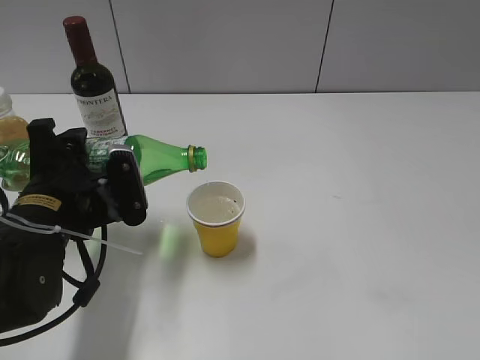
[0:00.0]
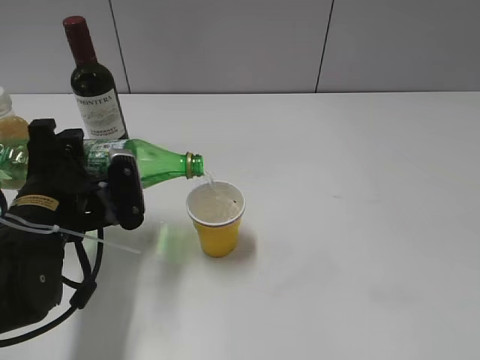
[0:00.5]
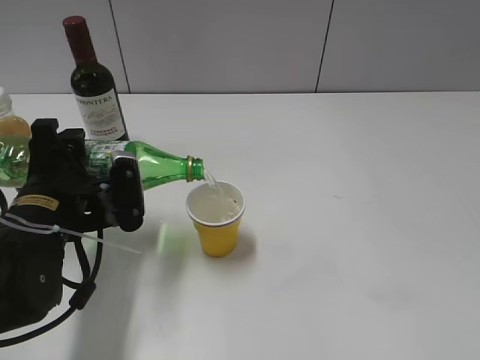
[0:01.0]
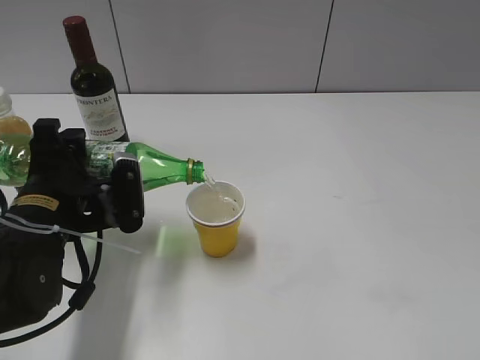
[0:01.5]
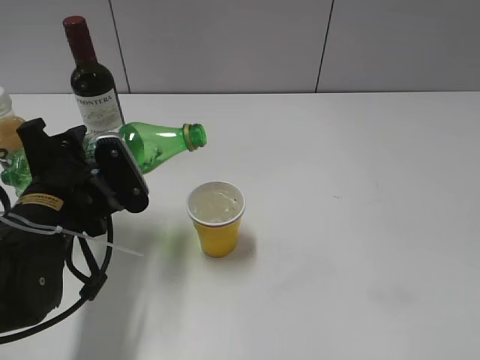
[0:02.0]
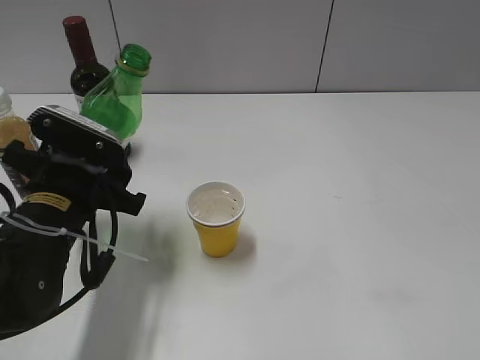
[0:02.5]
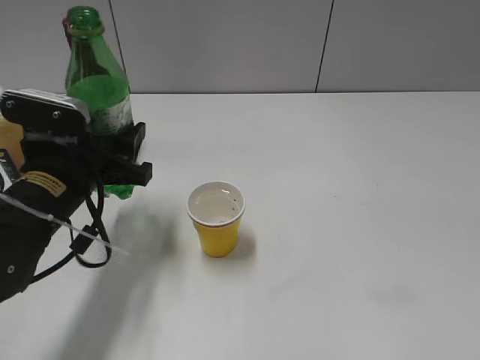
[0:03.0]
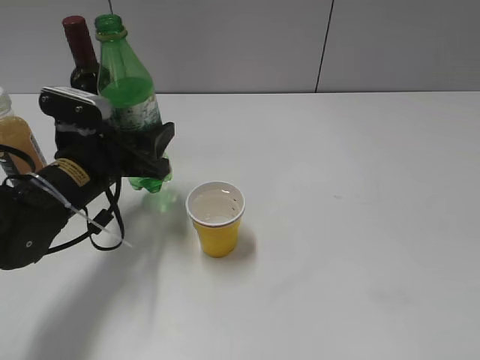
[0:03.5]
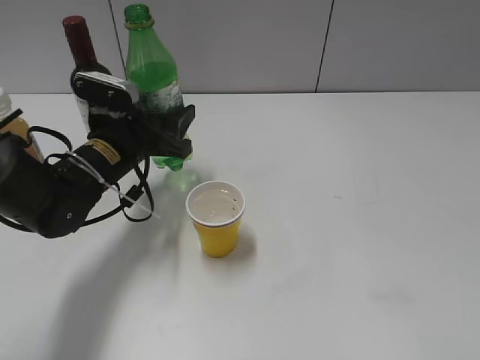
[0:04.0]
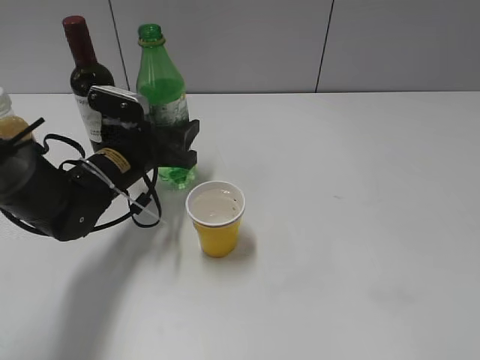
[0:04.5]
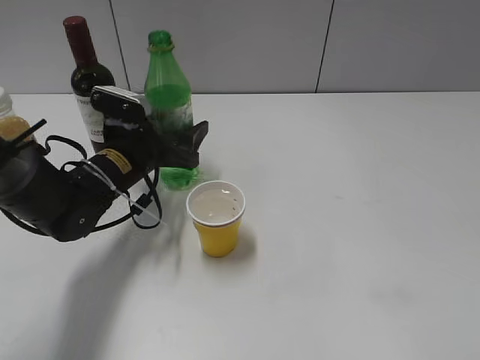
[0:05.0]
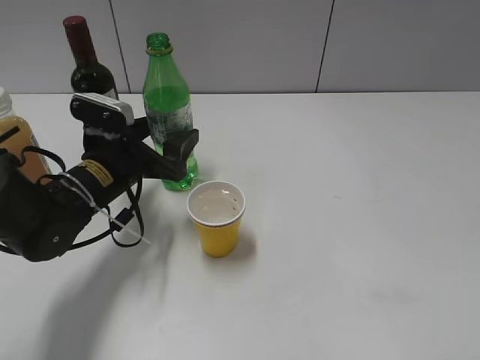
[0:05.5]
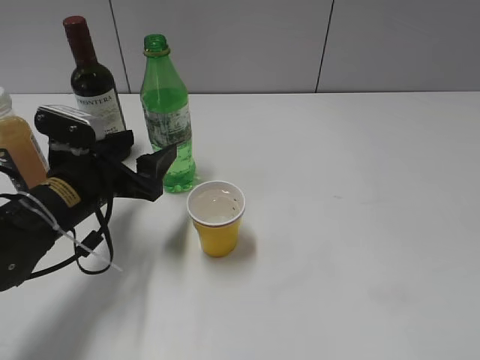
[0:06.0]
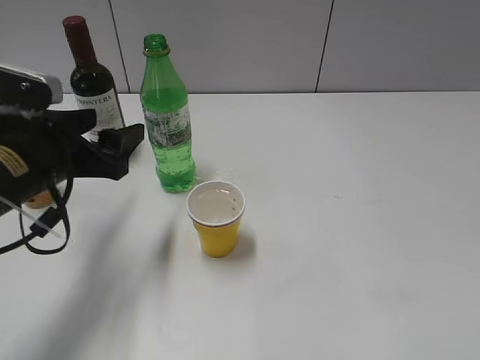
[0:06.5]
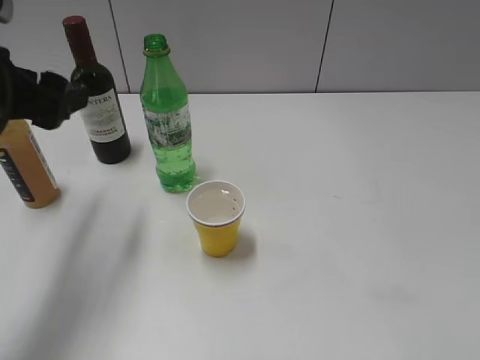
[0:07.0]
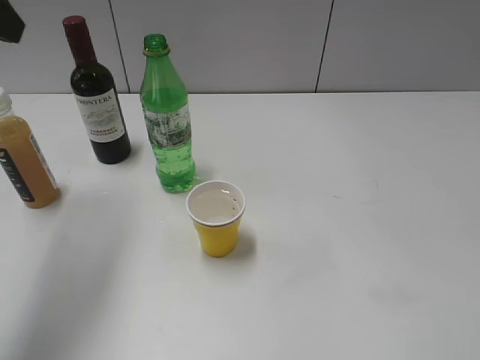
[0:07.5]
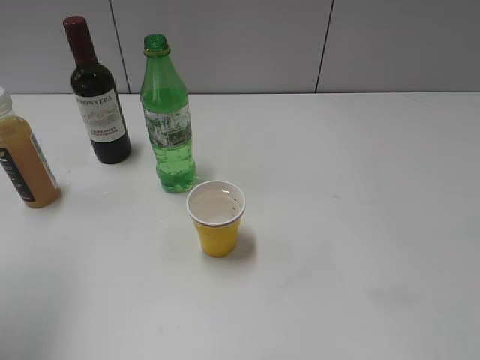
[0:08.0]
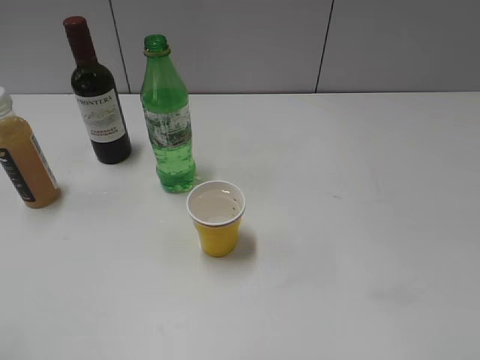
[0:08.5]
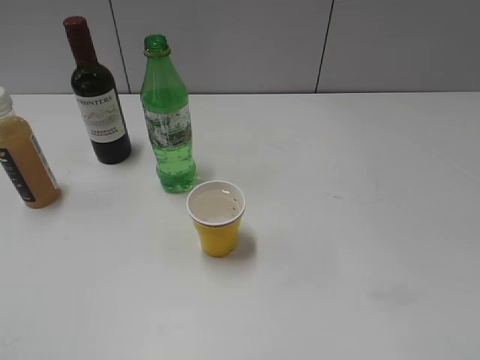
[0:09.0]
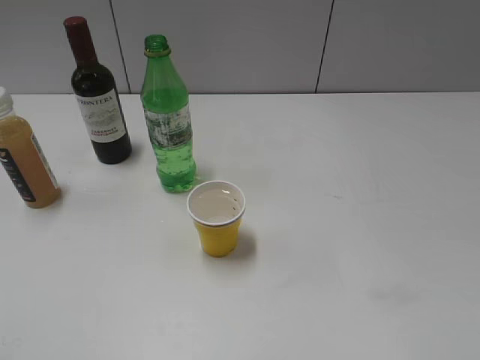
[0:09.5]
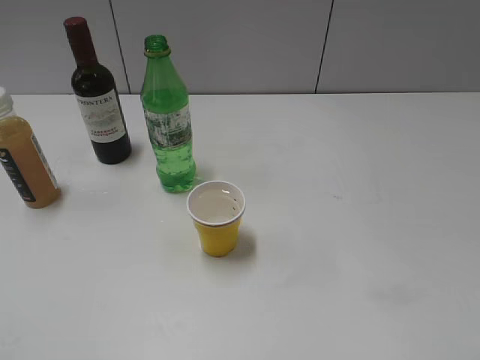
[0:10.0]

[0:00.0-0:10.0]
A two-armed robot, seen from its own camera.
Step, 0:00.0 to 0:02.0: Pour the sprite from bottle to cup with left gripper.
Step, 0:02.5 to 0:05.5: Place the sprite bottle on the table with left gripper.
0:00.0 to 0:02.0: The grippers move only a little.
0:02.0 to 0:04.0: The left gripper shifts roughly 10 cm forward.
0:04.0 to 0:06.0: The left gripper shifts approximately 5 cm backward, and opens up.
0:06.0 to 0:08.0: The left gripper moves upward and to the left, some 30 cm.
0:08.0 to 0:10.0: The left gripper goes roughly 20 cm backward and downward.

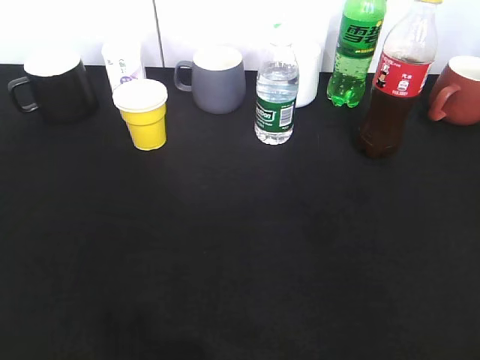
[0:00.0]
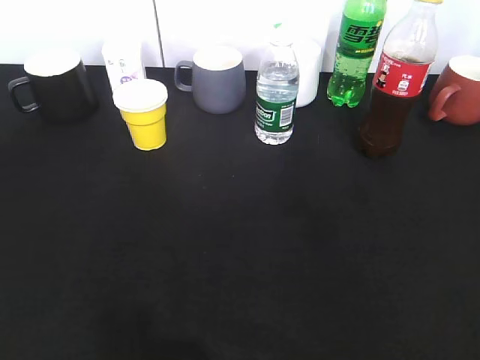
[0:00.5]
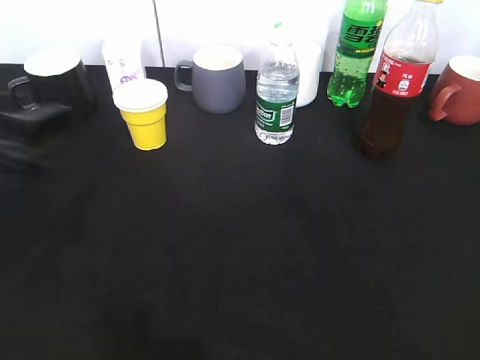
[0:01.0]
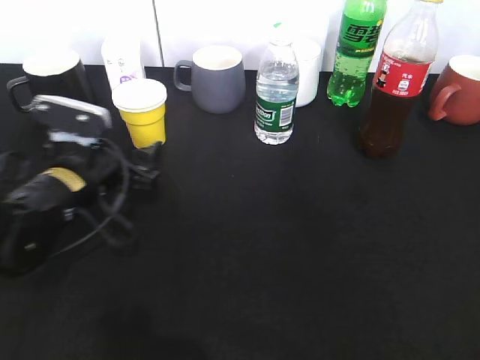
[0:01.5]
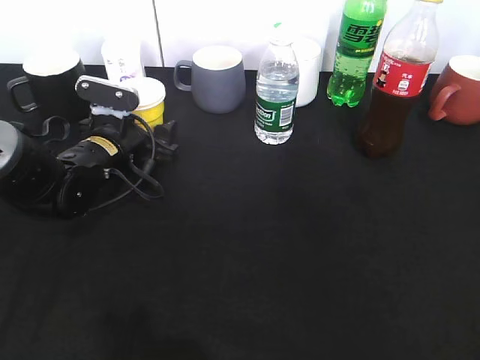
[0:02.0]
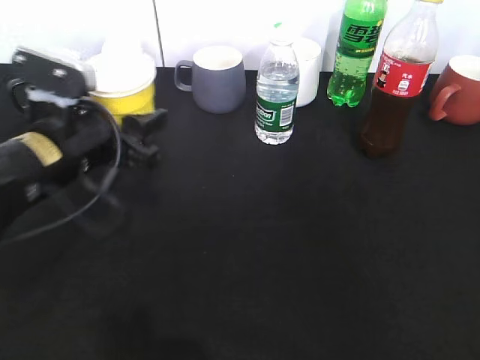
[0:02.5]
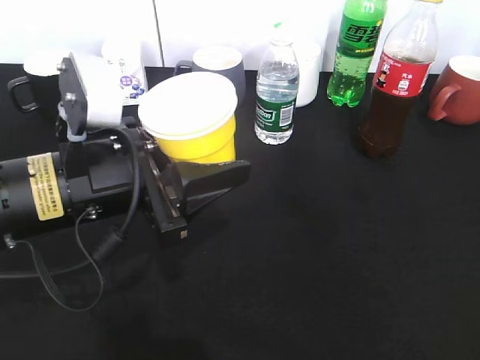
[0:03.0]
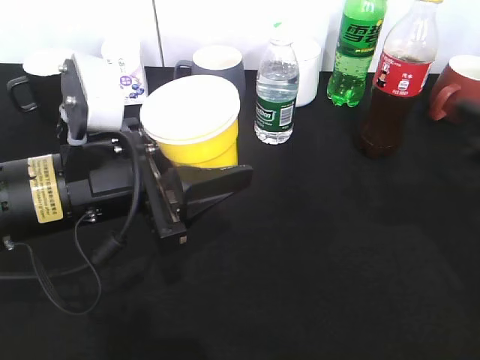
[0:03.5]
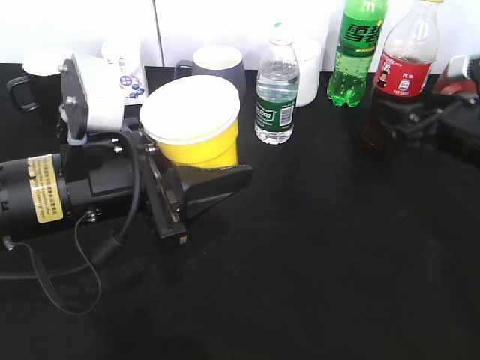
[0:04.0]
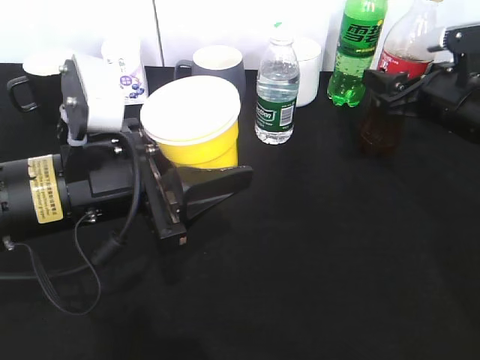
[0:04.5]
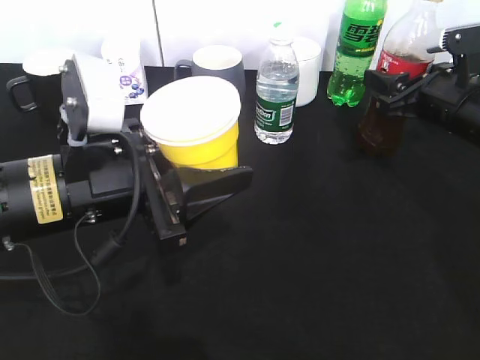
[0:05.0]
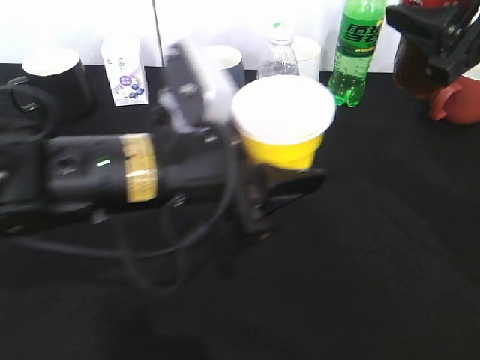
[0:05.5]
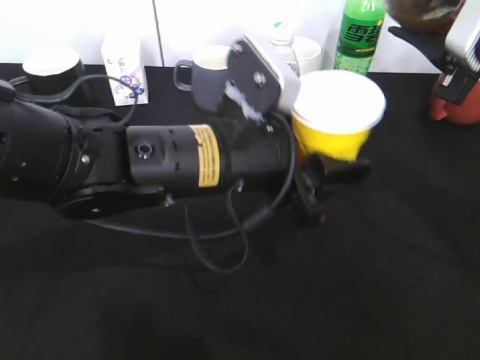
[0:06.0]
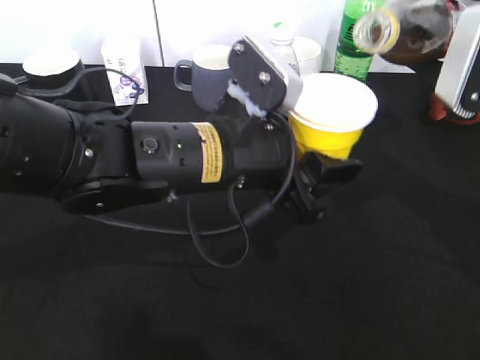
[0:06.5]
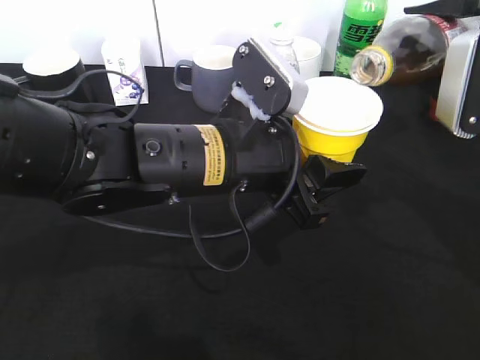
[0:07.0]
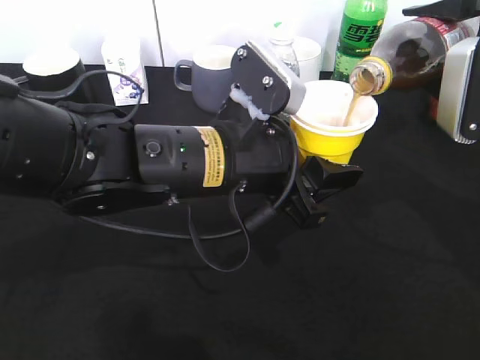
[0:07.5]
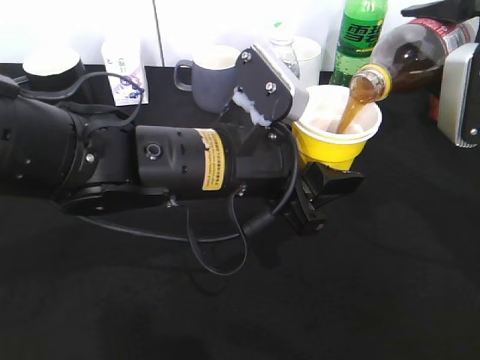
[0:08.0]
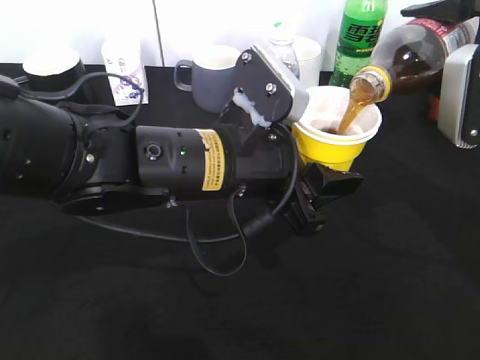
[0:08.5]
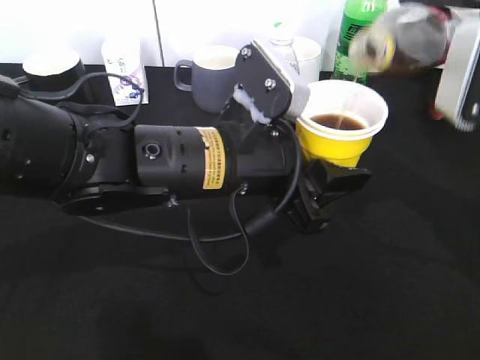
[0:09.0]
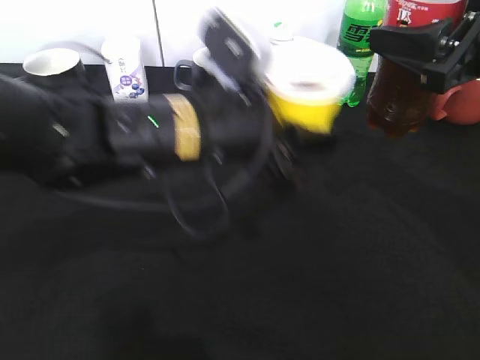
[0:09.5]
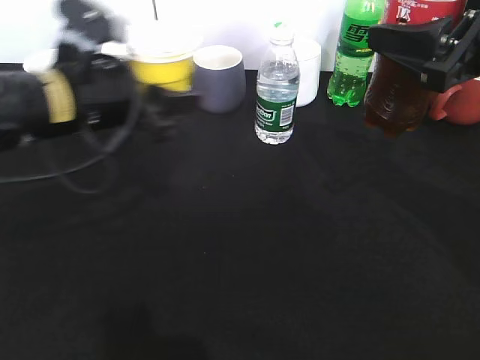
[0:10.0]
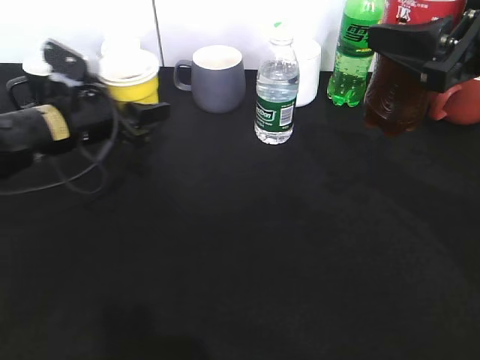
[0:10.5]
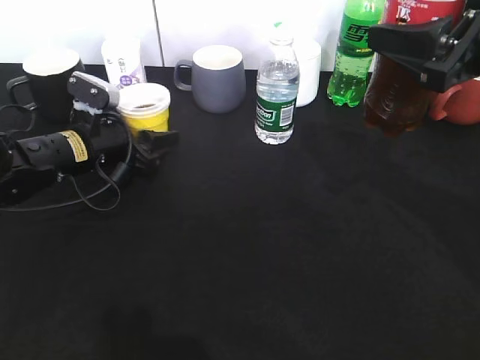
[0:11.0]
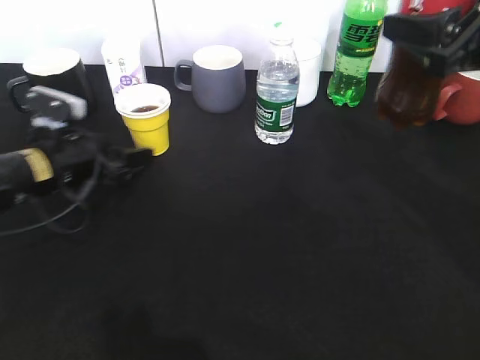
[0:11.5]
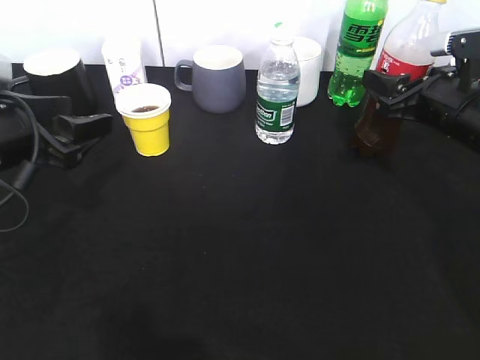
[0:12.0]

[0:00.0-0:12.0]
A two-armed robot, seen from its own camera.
Step, 0:00.0 to 0:02.0: Grasp the yellow paper cup with left gripper.
Step, 0:02.5 to 0:03.0: Lift the yellow paper cup with left gripper.
Step, 0:03.5 to 0:04.5: Grasp the bottle with cola with right gripper.
Step, 0:05.0 to 0:08.5: Pour the cola from bottle to cup with right gripper.
Step, 0:09.0 to 0:11.5: Place the yellow paper cup on the table with left gripper.
0:00.0 to 0:02.0: The left gripper heads forward, downward and to the right, covering about 40 cm, and opens up.
0:02.0 to 0:04.0: The right gripper heads forward, covering roughly 30 cm, and opens its fingers. The left gripper goes approximately 20 cm backward and upward, and closes up.
0:04.0 to 0:06.0: The right gripper travels upward by about 10 cm, and closes its fingers; the left gripper goes approximately 10 cm to the right.
0:08.0 to 0:10.0: The left gripper travels to the left and forward by approximately 15 cm.
0:10.0 to 0:12.0: The right gripper is displaced downward and forward by about 15 cm; the left gripper heads to the left, covering roughly 10 cm, moves roughly 10 cm downward and comes back, and opens up.

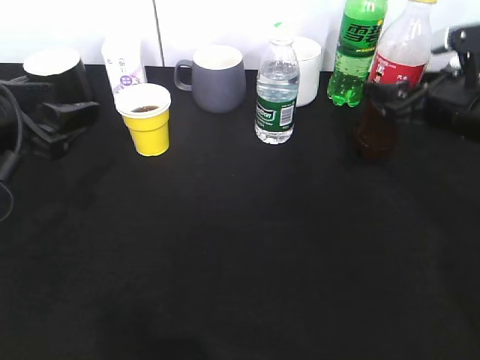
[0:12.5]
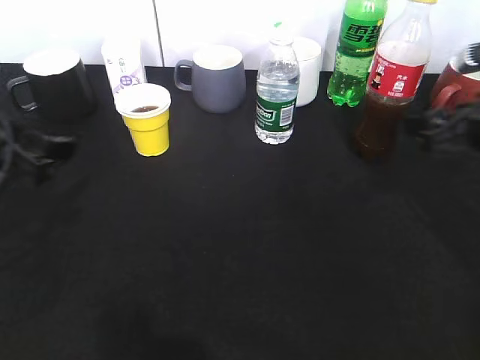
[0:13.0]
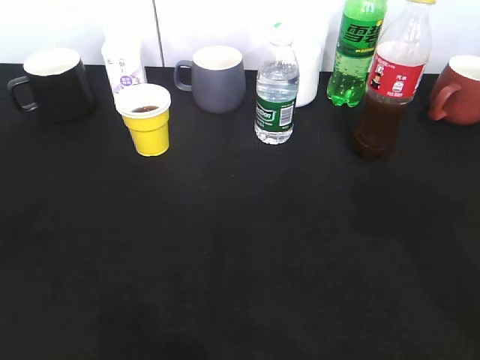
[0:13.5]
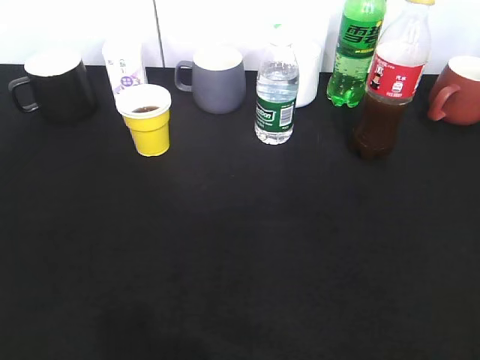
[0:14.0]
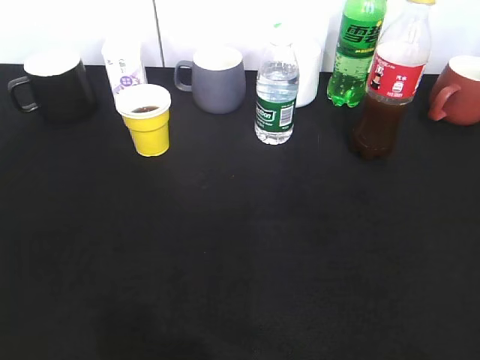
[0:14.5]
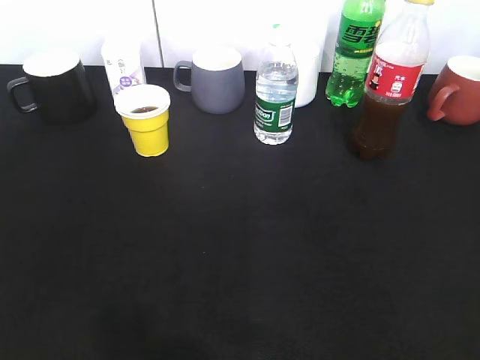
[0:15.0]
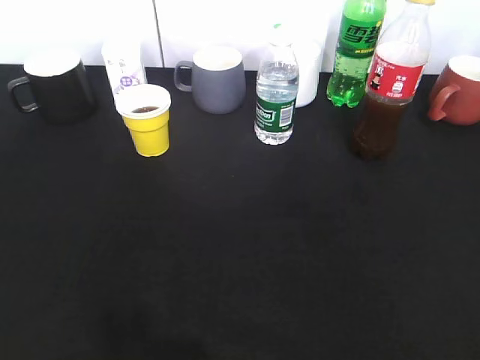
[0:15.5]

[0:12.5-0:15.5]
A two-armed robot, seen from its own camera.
0:12.5 to 0:14.0: The grippers both shift backward by about 30 cm. The right gripper closes up. The left gripper closes.
